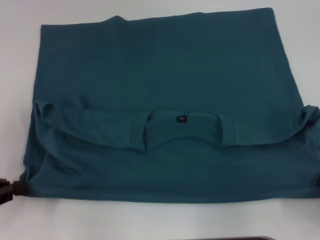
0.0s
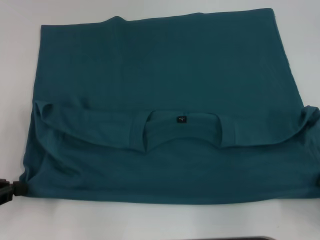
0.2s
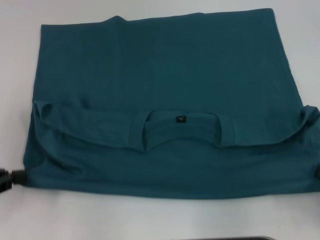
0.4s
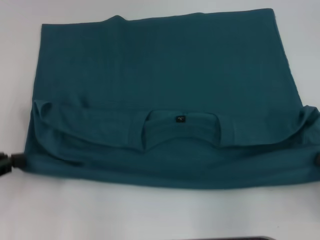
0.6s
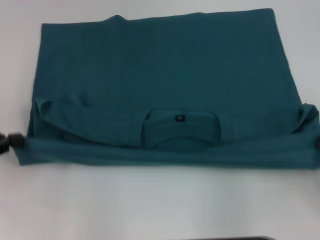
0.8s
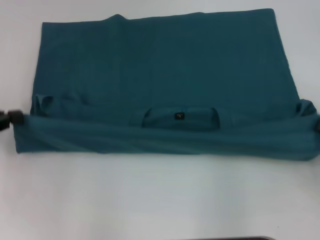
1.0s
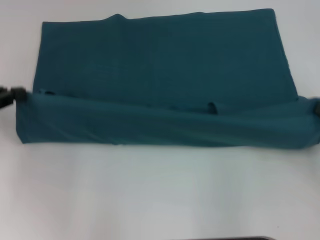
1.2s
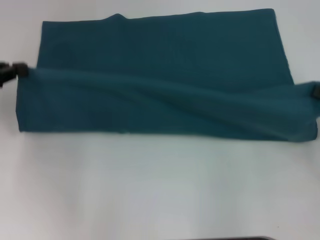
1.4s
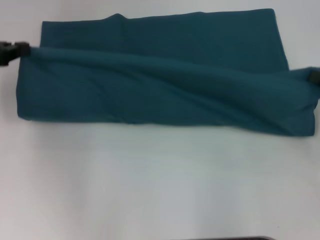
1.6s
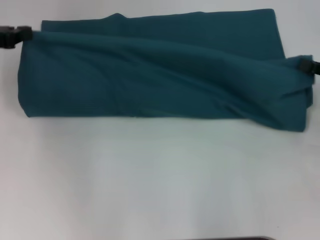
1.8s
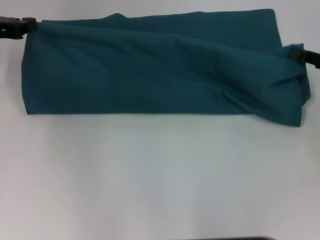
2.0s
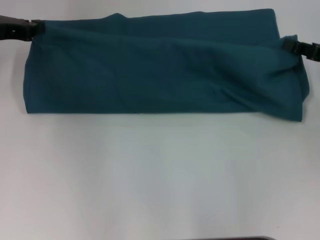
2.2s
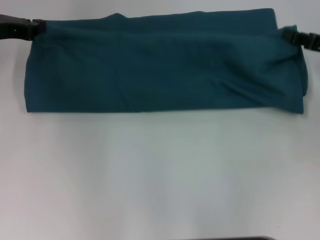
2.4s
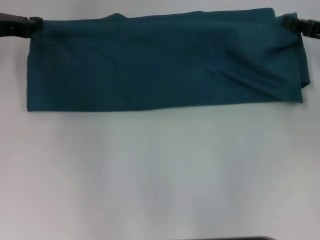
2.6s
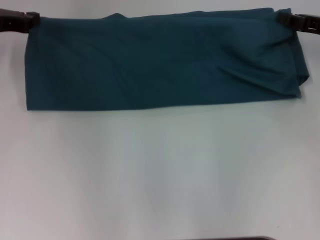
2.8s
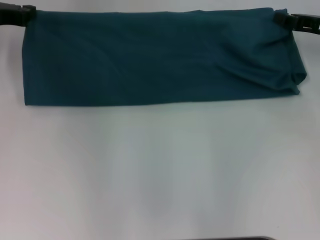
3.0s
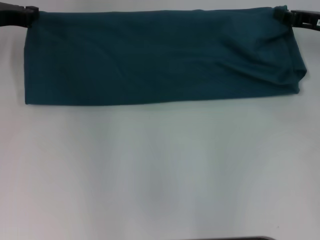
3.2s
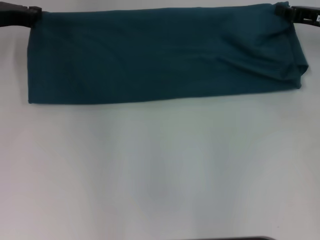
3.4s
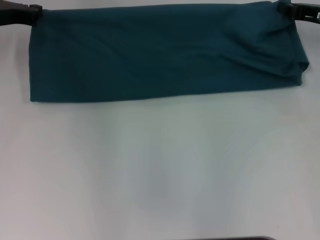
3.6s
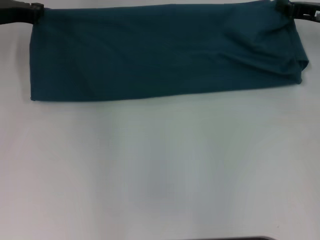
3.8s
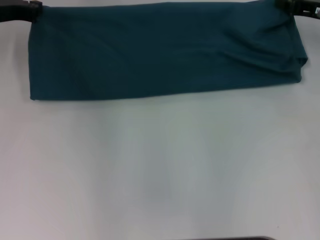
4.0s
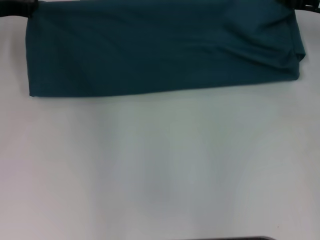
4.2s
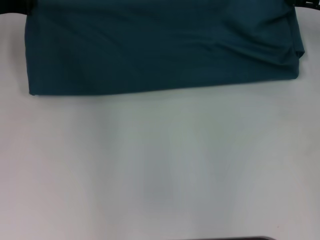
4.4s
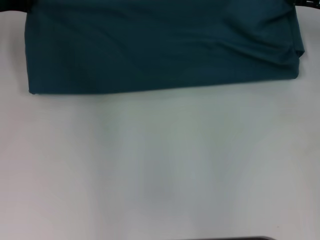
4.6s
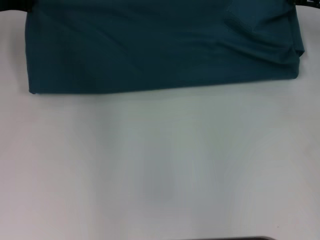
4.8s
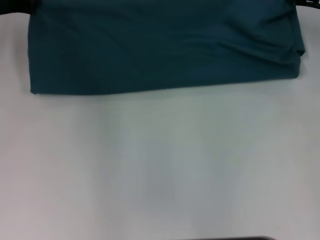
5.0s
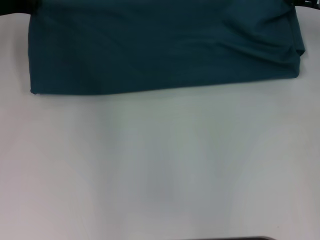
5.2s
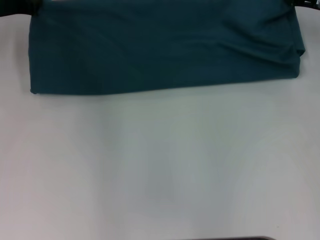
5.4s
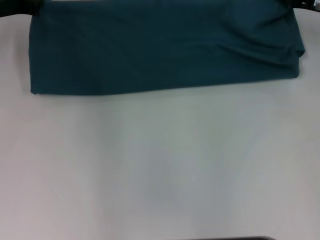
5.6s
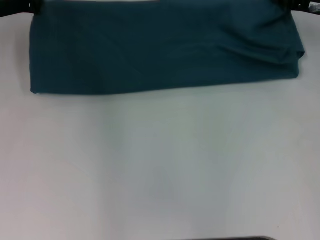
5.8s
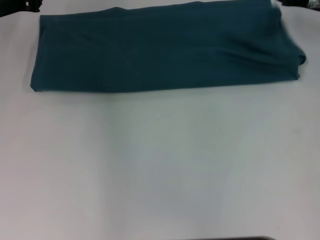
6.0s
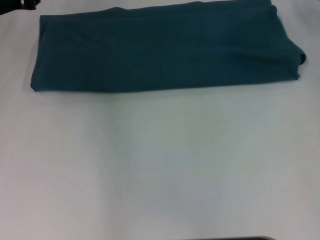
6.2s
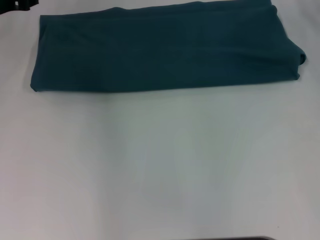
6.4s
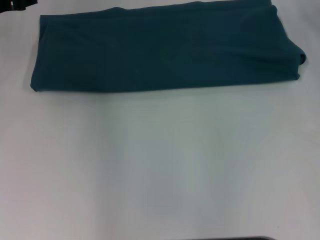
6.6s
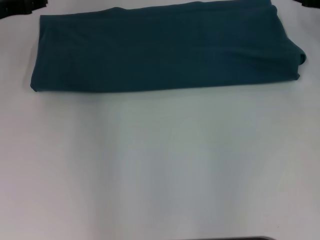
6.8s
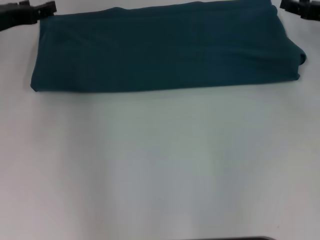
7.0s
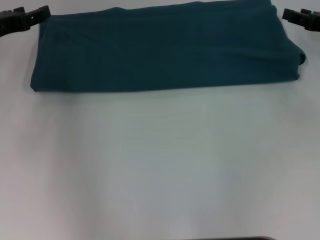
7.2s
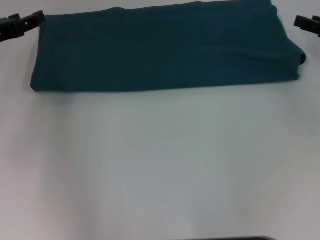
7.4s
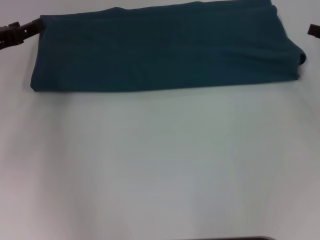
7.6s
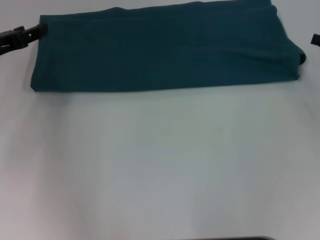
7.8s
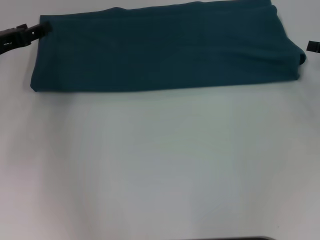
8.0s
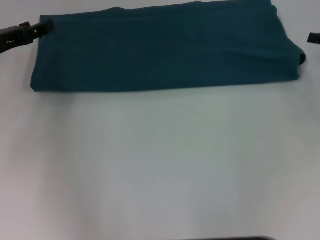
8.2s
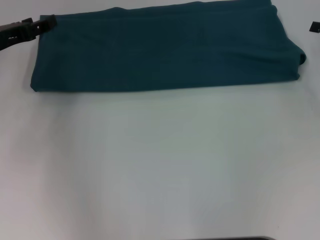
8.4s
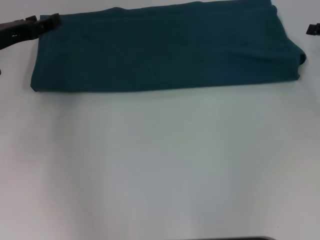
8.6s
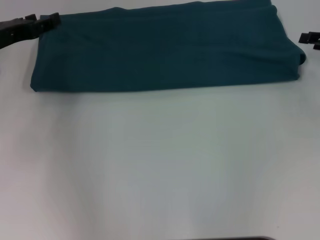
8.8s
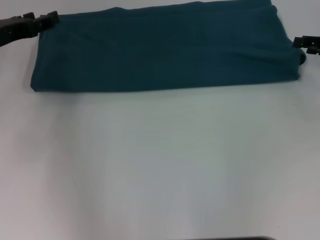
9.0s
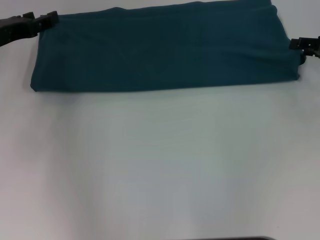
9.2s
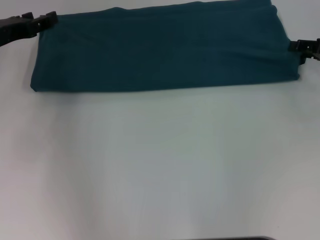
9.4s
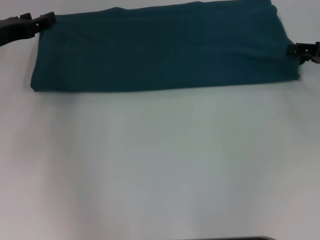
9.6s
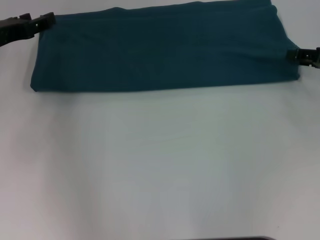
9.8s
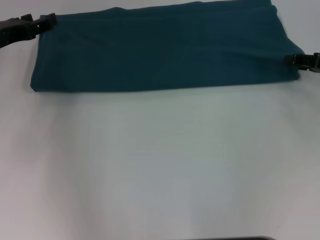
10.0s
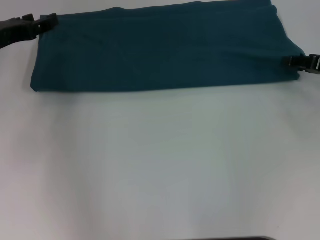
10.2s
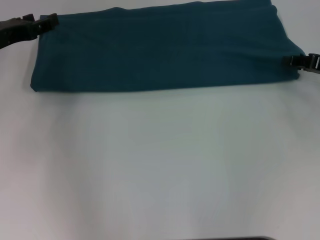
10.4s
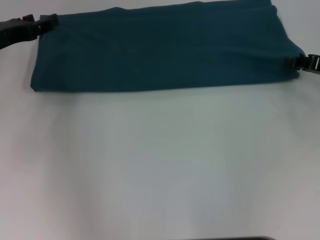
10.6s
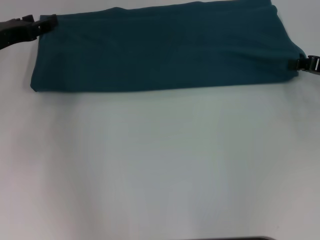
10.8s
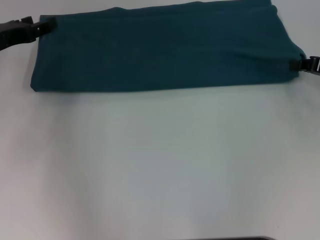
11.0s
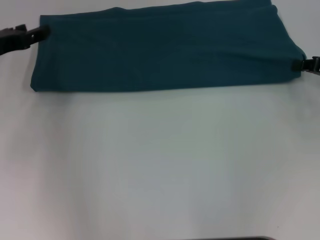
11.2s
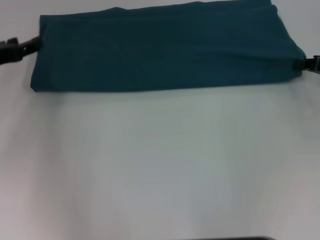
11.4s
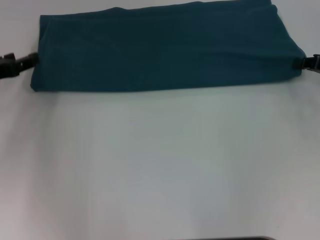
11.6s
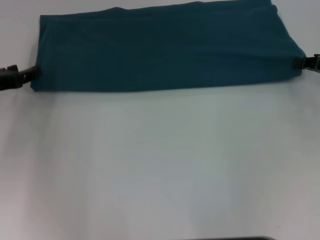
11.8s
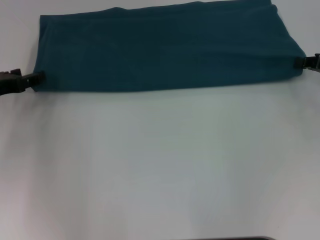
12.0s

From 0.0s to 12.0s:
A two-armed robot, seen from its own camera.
Step, from 0.2s to 6.4s: Fold the clothes to the left.
Step, from 0.2s to 6.4s: Fold the clothes to the right.
From 0.0s to 1.6s: The right gripper is displaced forward by approximately 15 cm. The left gripper travels forward and upward by about 15 cm.
From 1.6s to 3.0s: The right gripper moves forward and to the left, about 15 cm; the left gripper moves forward, approximately 5 cm.
From 3.0s to 6.0s: The grippers stay close to where they were, moving slightly.
From 6.0s to 7.6s: The right gripper goes roughly 10 cm backward and to the right, and opens up. Meanwhile the left gripper heads backward, covering some 10 cm, and opens up.
From 7.6s to 10.4s: The grippers move only a little.
From 10.4s to 12.0s: The left gripper moves some 5 cm.

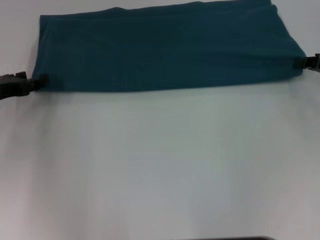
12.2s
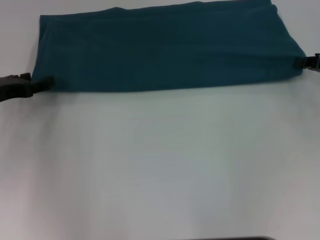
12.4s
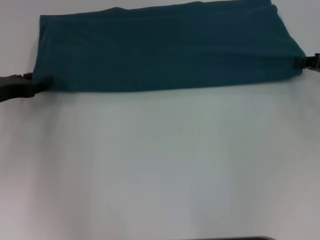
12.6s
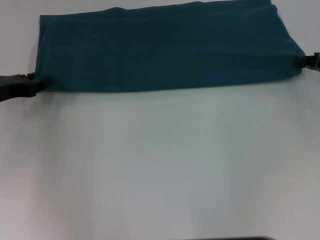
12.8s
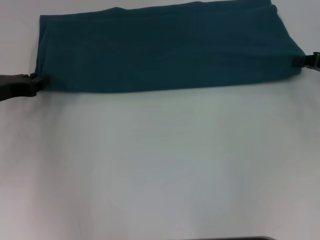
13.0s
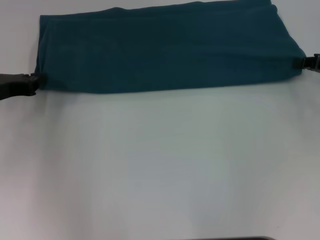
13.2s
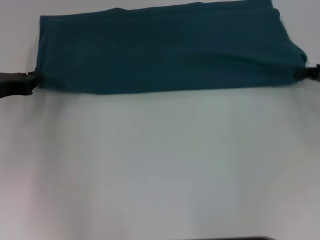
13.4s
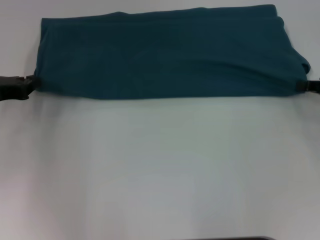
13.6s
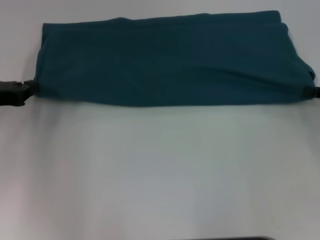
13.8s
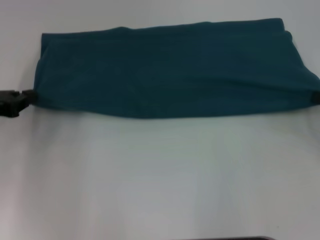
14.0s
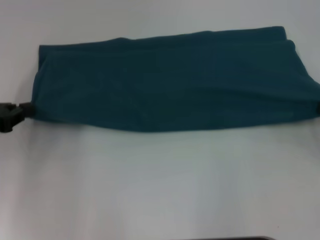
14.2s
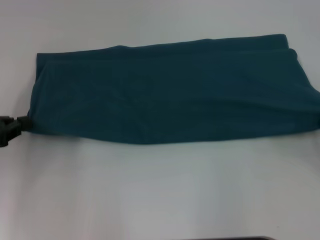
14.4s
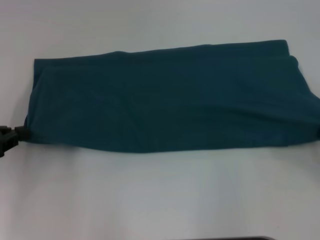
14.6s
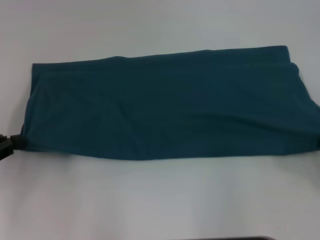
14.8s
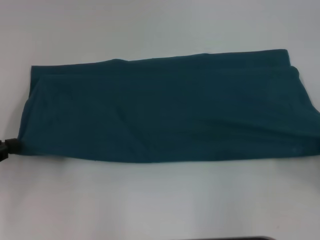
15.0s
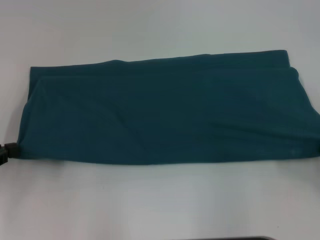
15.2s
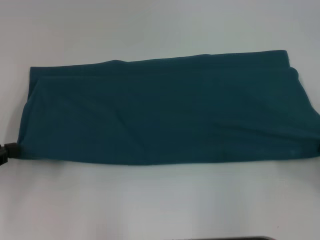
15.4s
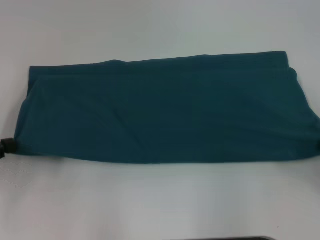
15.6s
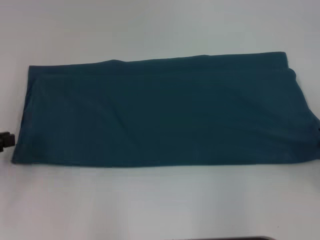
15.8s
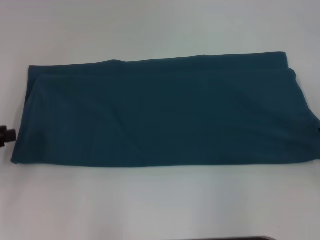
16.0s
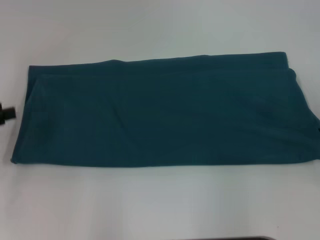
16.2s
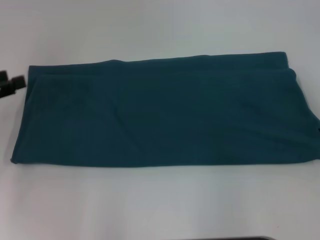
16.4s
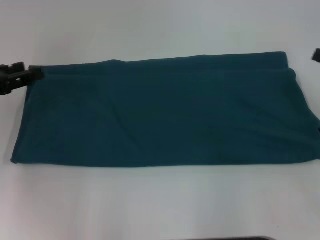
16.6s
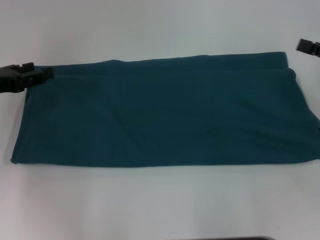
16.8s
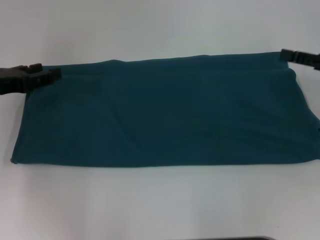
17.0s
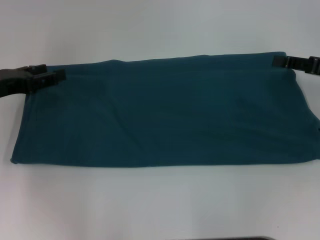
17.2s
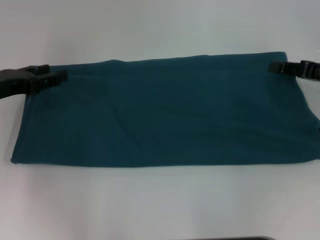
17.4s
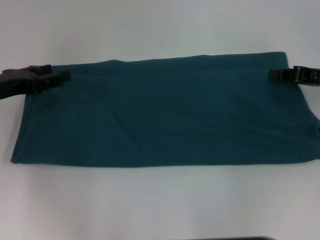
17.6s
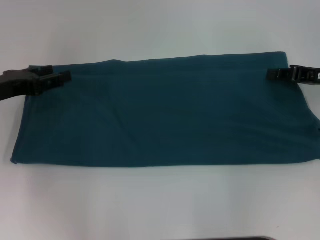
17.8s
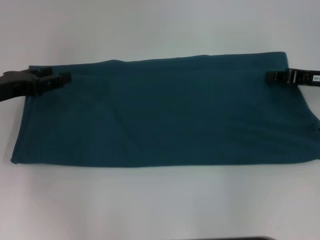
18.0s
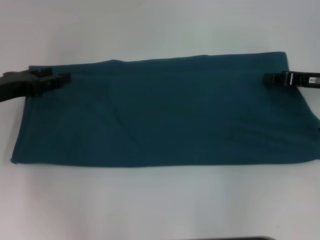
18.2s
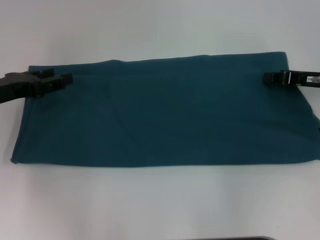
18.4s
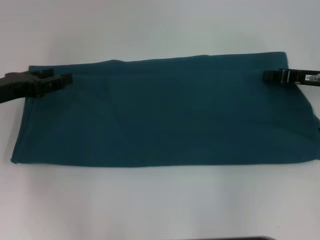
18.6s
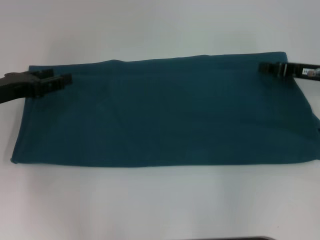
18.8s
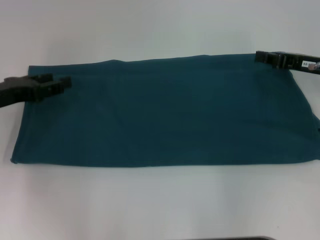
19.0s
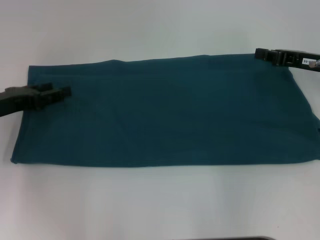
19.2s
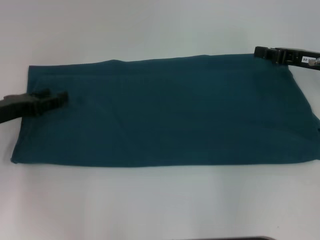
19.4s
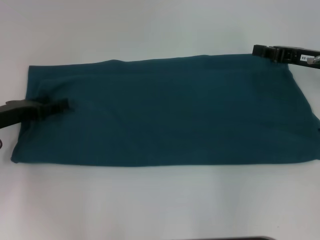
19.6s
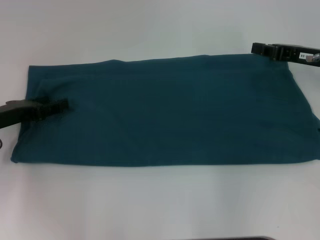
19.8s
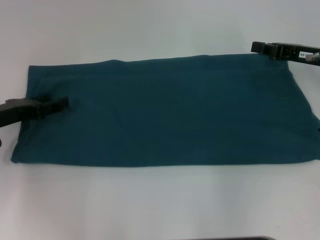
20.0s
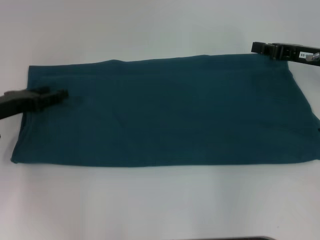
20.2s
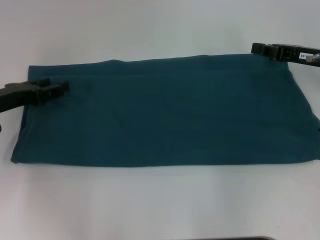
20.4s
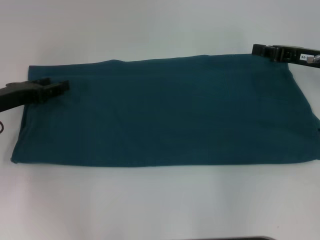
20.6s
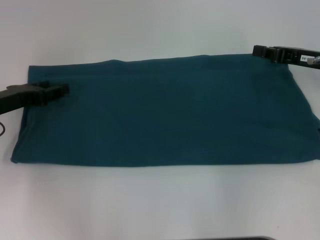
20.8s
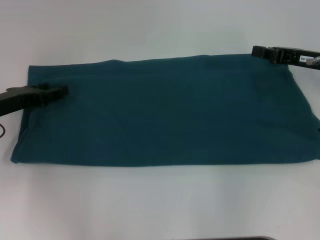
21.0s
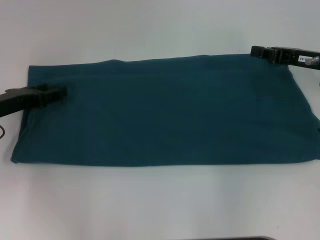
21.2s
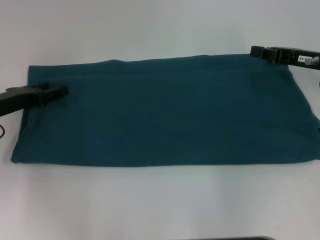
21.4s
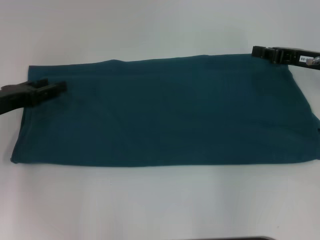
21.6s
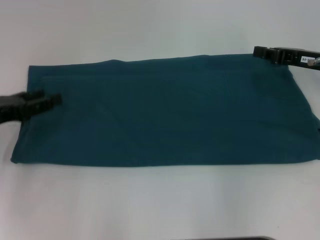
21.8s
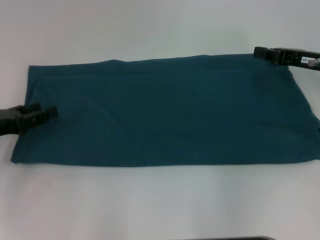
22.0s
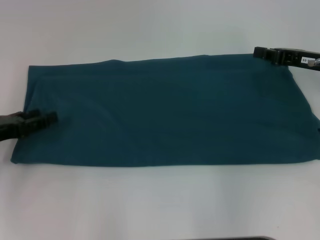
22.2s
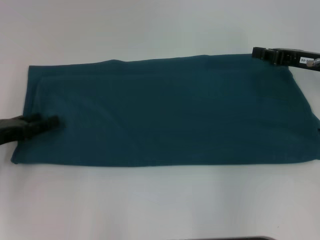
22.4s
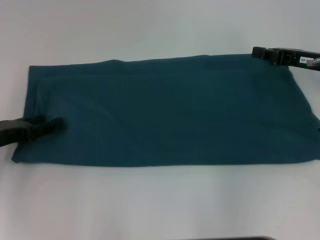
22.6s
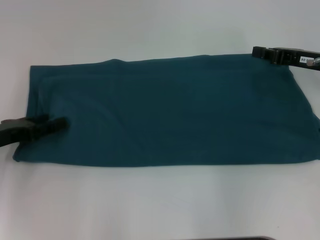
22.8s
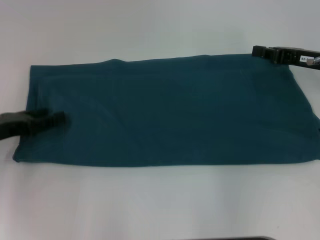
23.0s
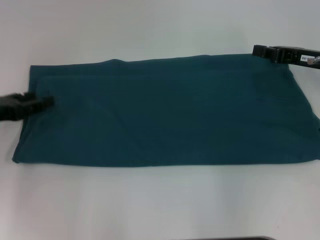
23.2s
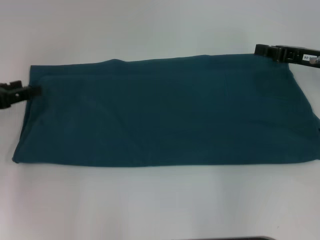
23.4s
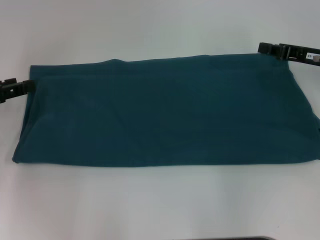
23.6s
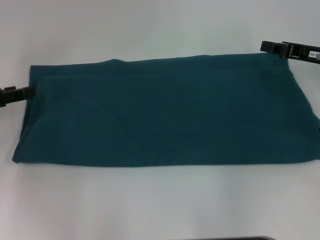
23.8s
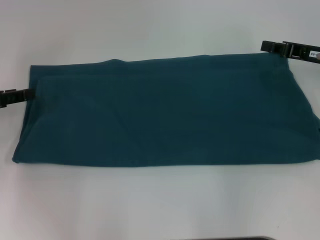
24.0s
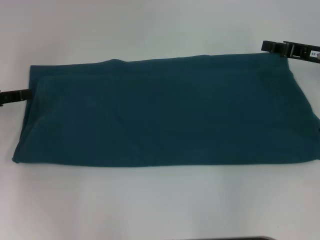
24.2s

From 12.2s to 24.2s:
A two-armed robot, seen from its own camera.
Step, from 12.2s to 16.2s: Pull the clothes with your left hand.
Step, from 12.2s to 16.2s: Pull the clothes with your right hand.
From 12.2s to 13.8s: The right gripper is displaced backward by some 5 cm; the left gripper closes its fingers.
From 13.8s to 15.2s: Both grippers move backward, approximately 10 cm.
From 15.2s to 16.6s: The right gripper moves forward and upward, some 10 cm, and opens; the left gripper shifts some 5 cm forward, and opens its fingers.
From 16.6s to 18.2s: The right gripper is displaced forward and to the left by roughly 10 cm, and closes.
From 18.2s to 21.2s: The grippers move only a little.
From 21.2s to 22.6s: The left gripper changes place by roughly 5 cm.
From 22.6s to 24.2s: The left gripper moves upward, some 5 cm.
